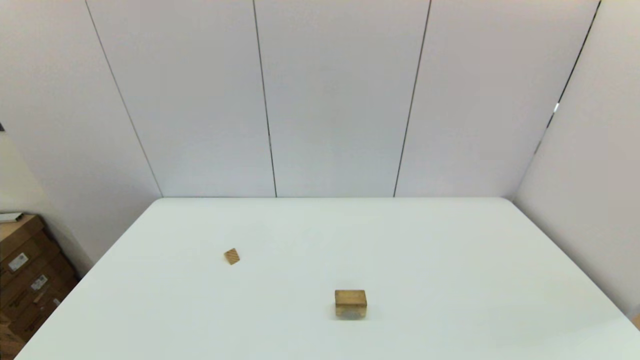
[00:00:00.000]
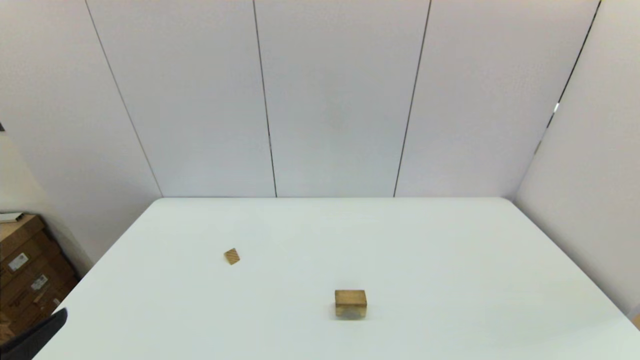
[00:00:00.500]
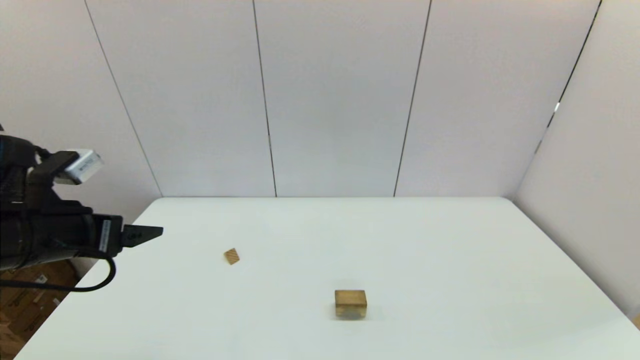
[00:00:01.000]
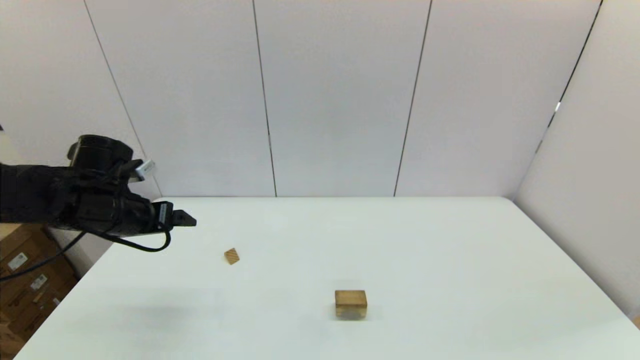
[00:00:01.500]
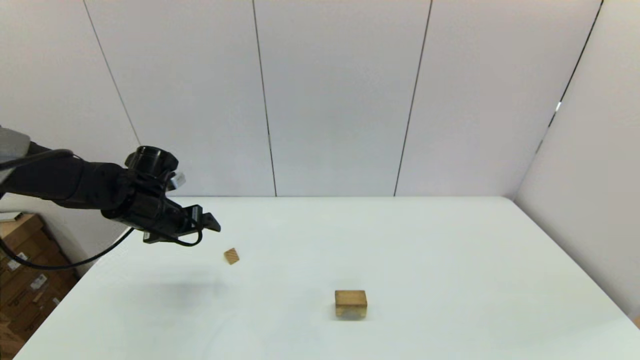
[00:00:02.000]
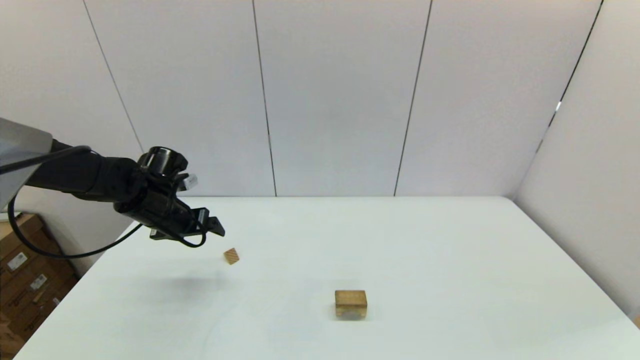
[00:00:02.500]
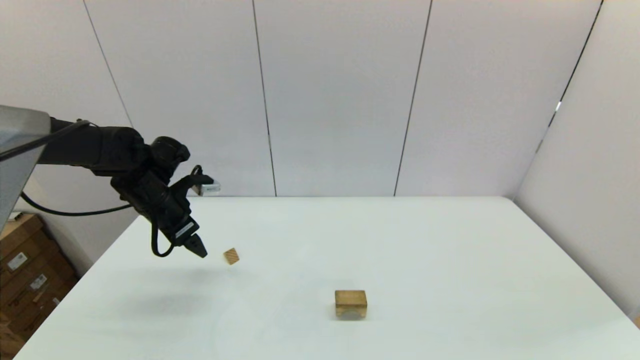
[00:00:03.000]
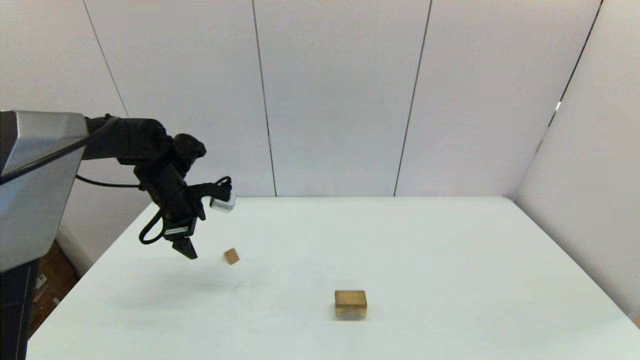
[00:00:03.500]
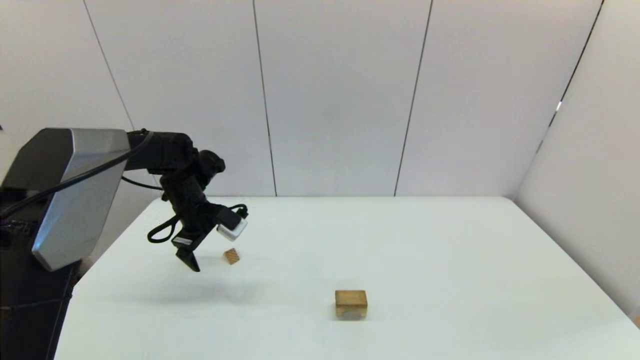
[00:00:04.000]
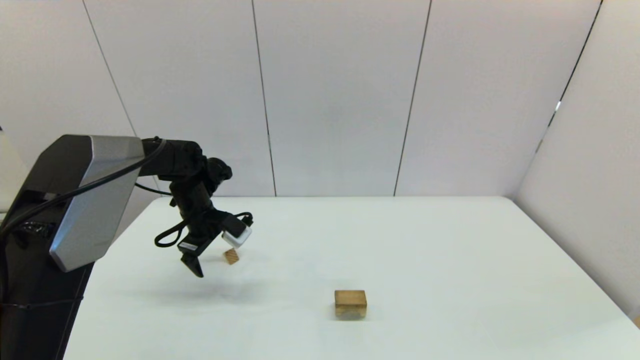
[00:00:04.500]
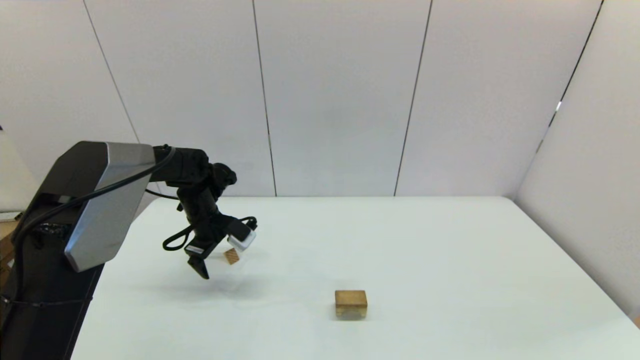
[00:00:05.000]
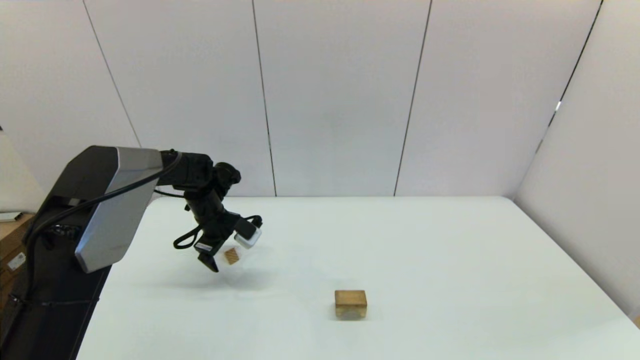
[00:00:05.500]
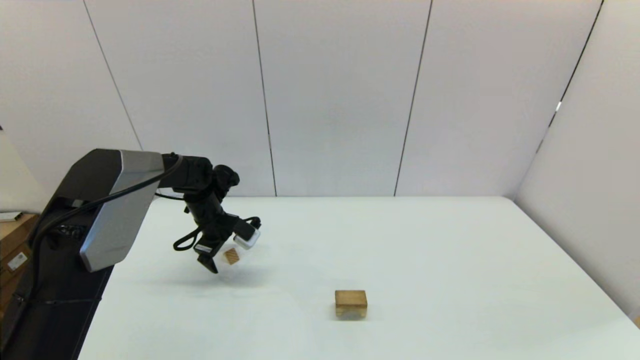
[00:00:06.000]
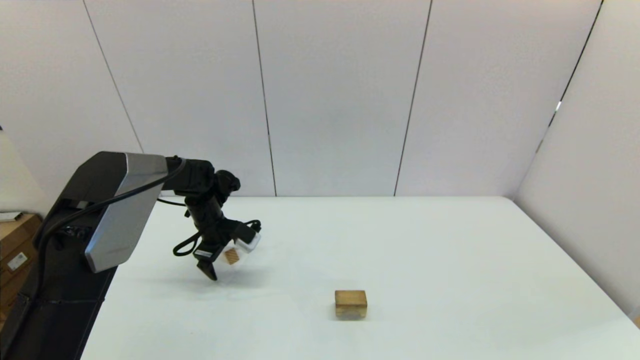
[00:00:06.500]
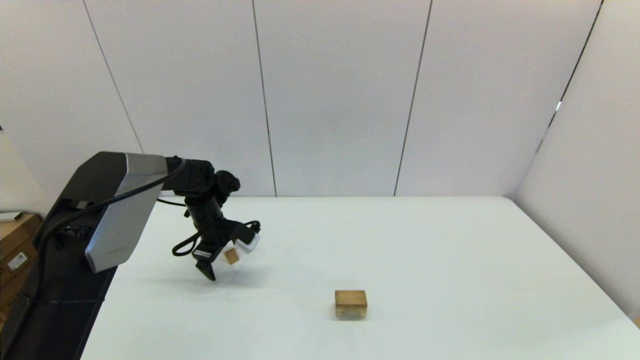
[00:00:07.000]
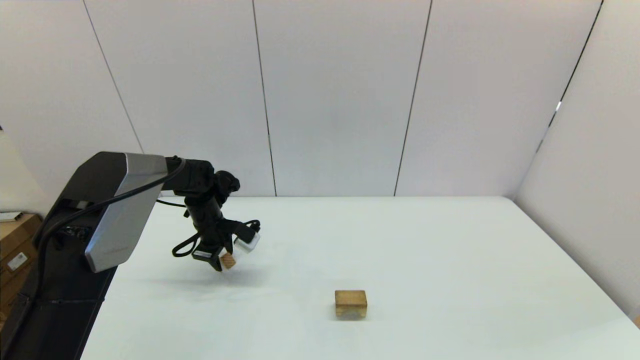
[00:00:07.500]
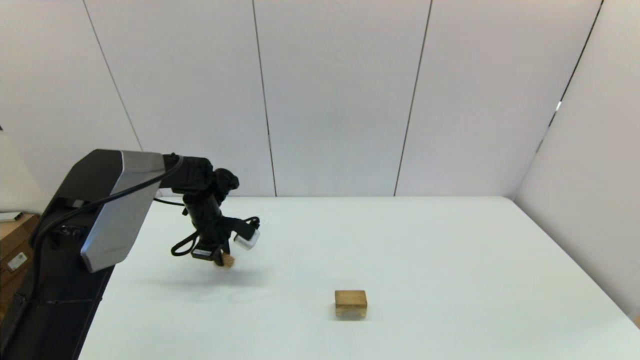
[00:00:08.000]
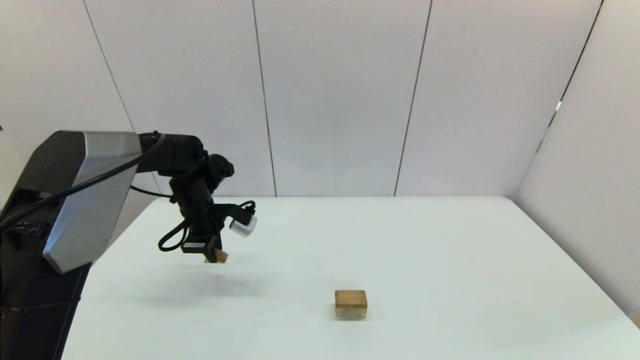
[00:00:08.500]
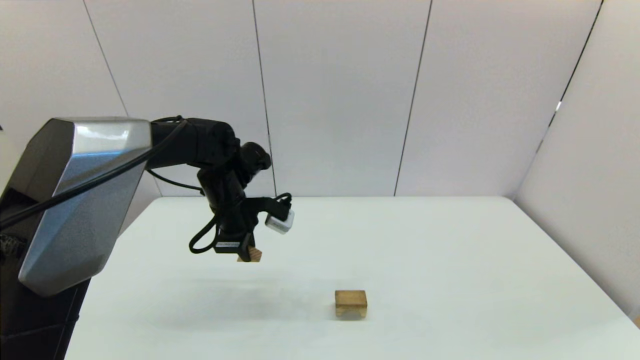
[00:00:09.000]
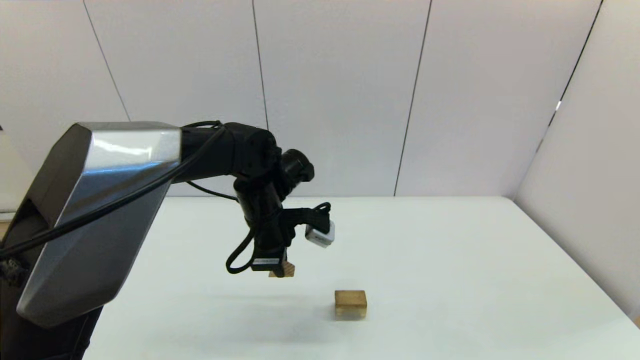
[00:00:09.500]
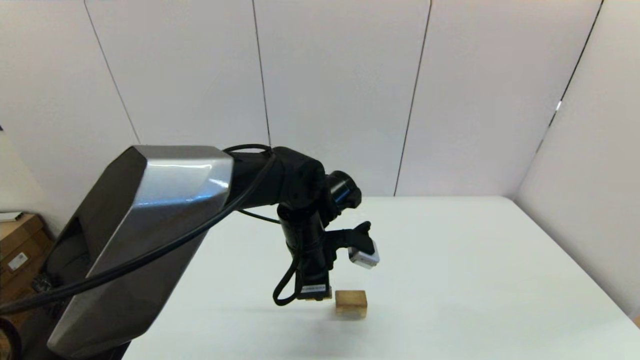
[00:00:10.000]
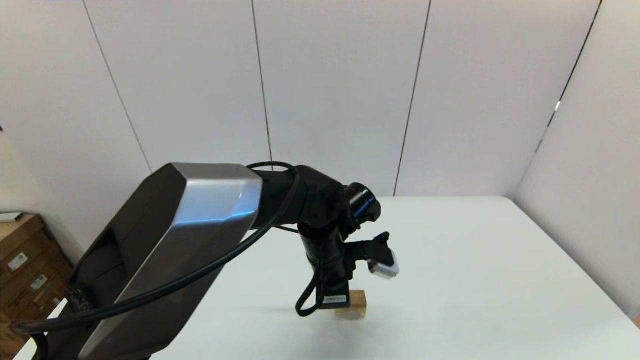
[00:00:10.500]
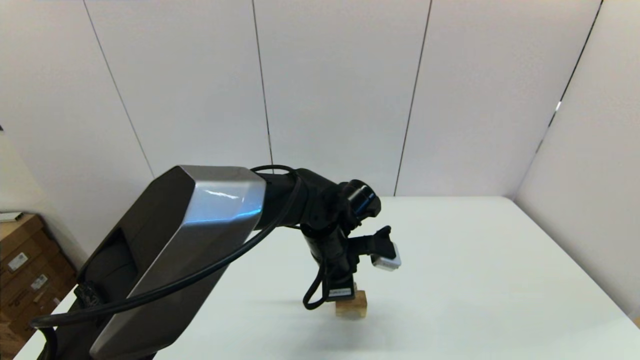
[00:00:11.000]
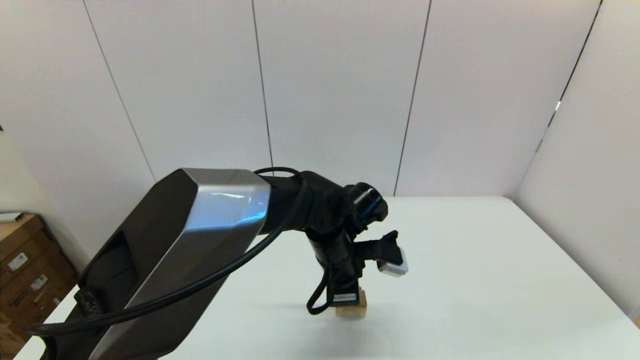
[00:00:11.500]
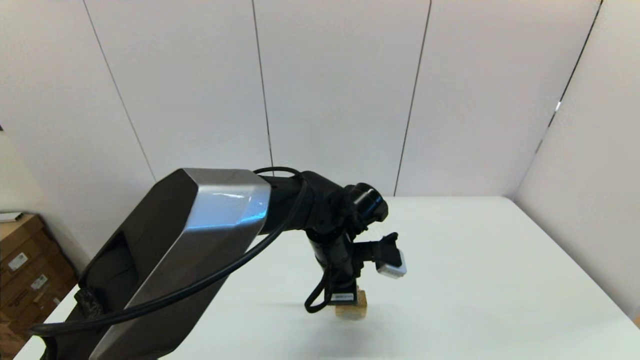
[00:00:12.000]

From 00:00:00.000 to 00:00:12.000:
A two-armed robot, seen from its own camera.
Task of the whole recording: place the arched building blocks in the center of the table, set up the rectangular building blocks, and then set up the triangular building blocks.
Step, from 00:00:00.000 to 00:00:07.500: Grasp the triangle-shaped block with the left gripper.
From 00:00:00.000 to 00:00:02.000: The left gripper heads forward, covering roughly 40 cm.
From 00:00:02.000 to 00:00:04.000: The left gripper is displaced forward by about 5 cm.
From 00:00:04.000 to 00:00:06.000: The left gripper shifts roughly 5 cm downward.
From 00:00:06.000 to 00:00:08.000: The left gripper closes up.
From 00:00:08.000 to 00:00:10.000: The left gripper is displaced to the right and backward by about 25 cm.
From 00:00:10.000 to 00:00:12.000: The grippers make only small movements.

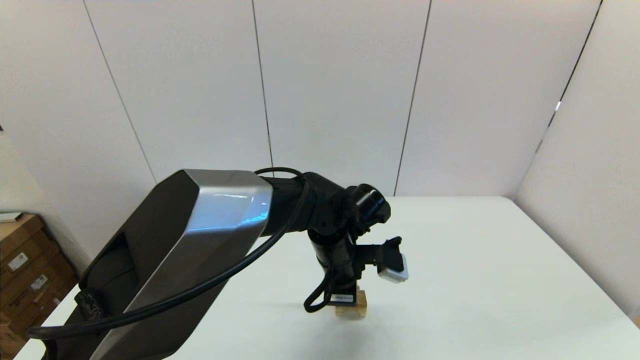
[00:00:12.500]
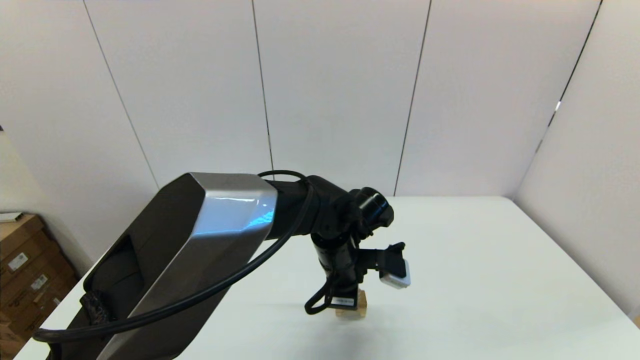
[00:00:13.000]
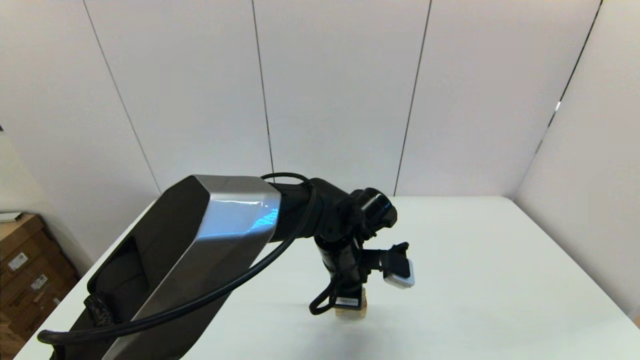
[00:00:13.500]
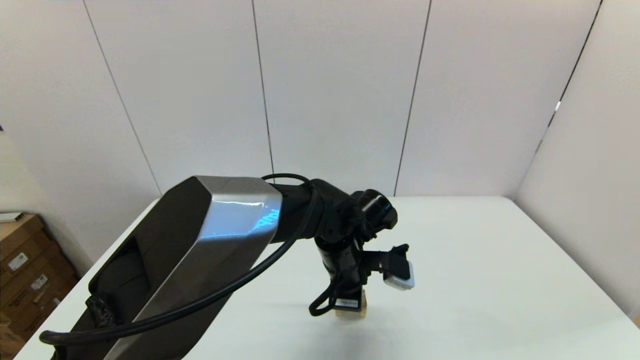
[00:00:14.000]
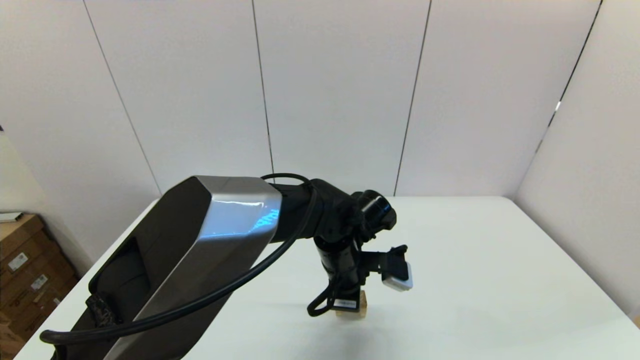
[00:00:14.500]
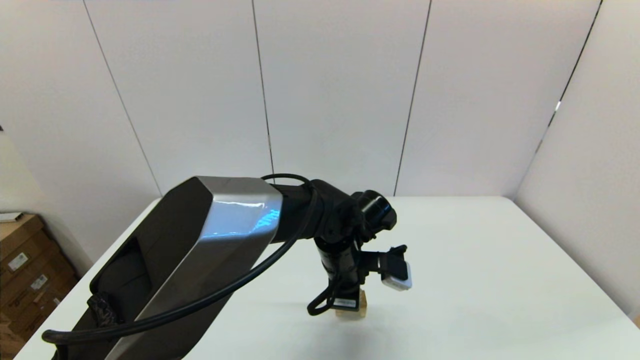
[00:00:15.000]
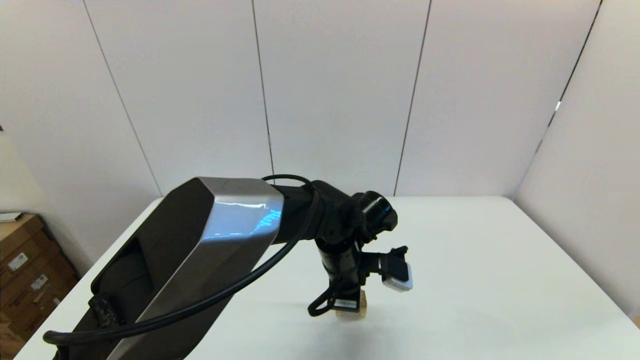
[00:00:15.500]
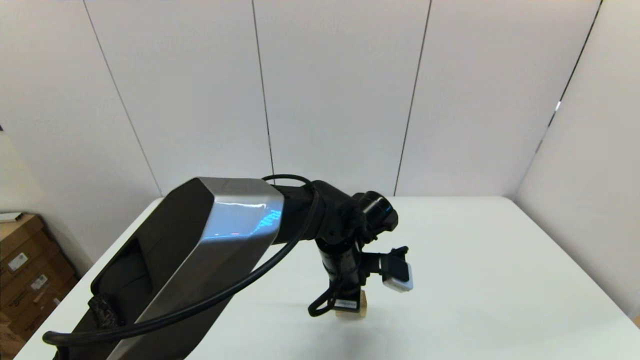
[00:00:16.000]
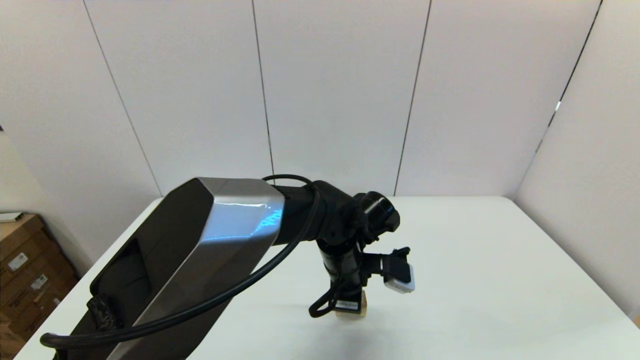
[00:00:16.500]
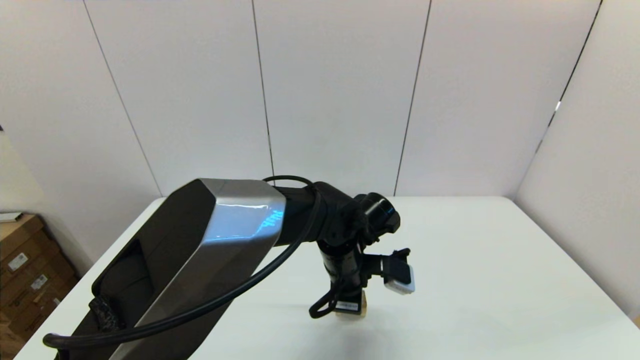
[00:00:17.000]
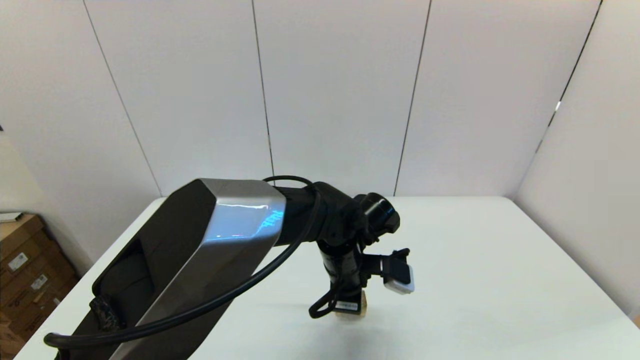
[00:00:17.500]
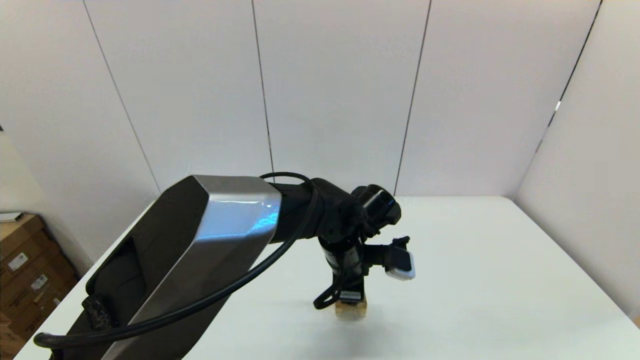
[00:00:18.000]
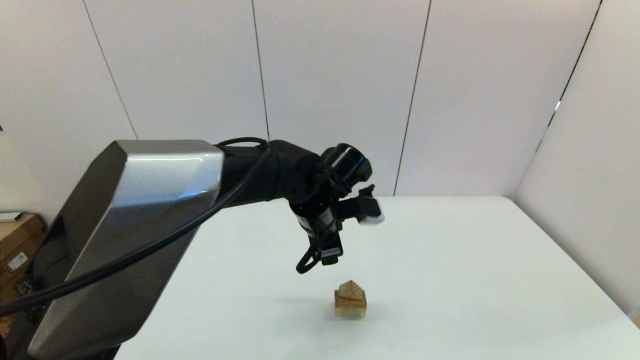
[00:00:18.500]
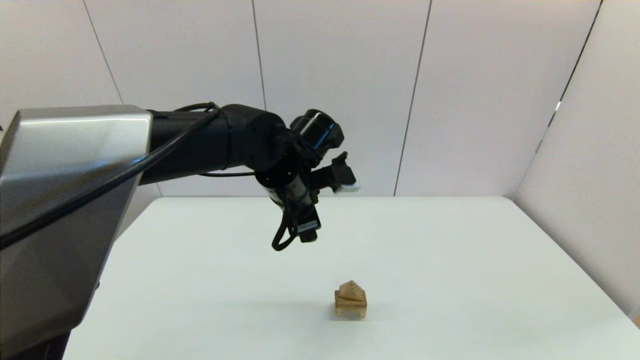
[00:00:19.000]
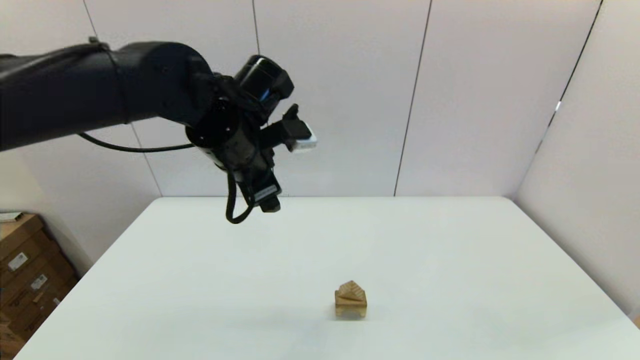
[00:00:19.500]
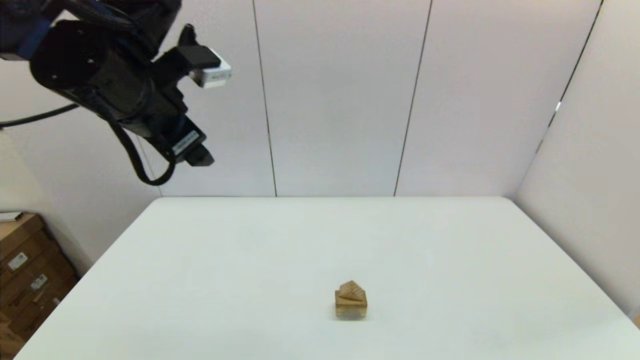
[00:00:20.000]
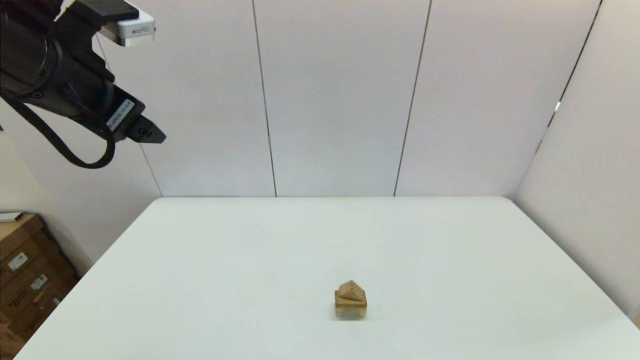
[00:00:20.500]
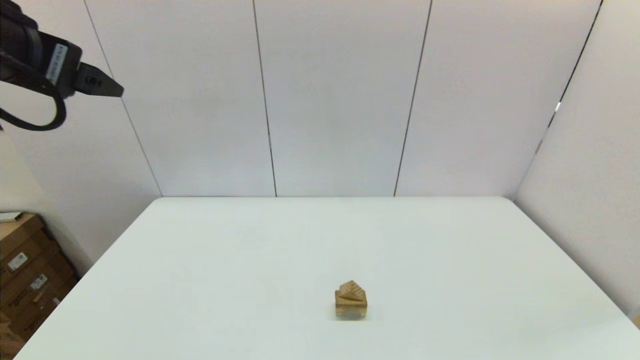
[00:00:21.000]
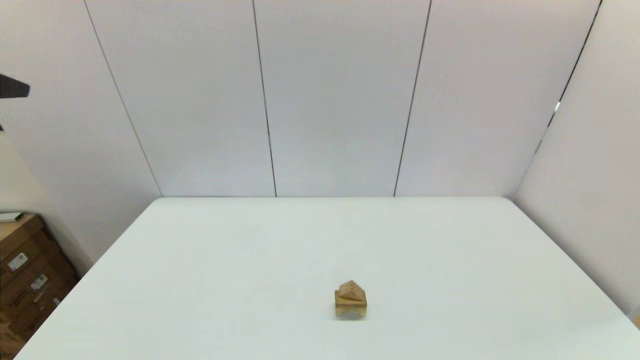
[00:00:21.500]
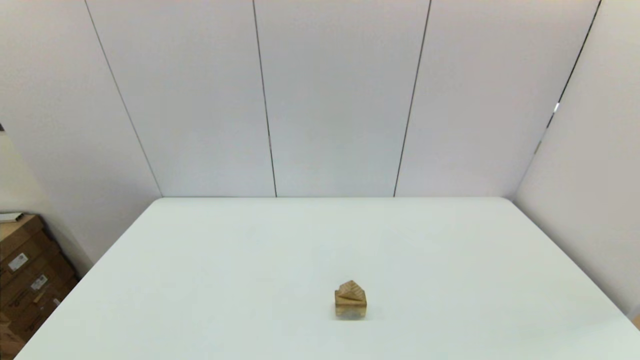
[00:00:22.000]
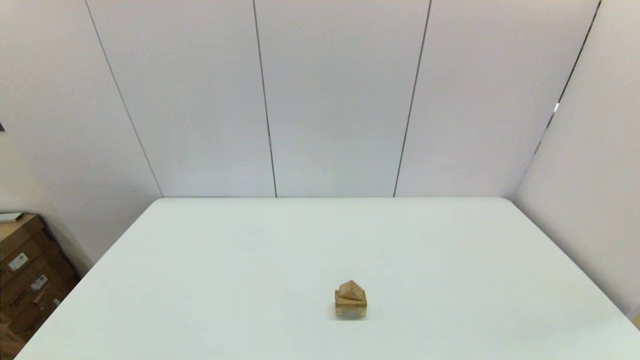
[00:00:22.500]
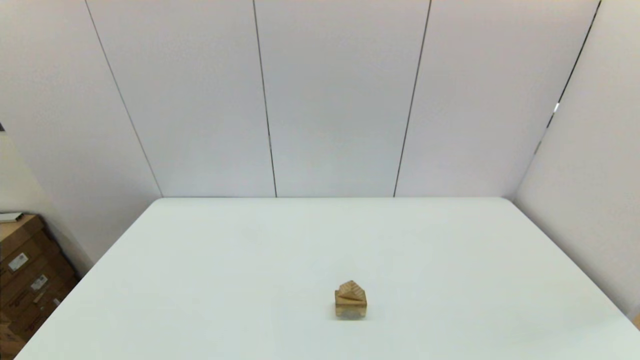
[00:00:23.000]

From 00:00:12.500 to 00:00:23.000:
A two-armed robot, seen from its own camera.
Task of the whole recording: place the arched building blocks in the center of the table, set up the rectangular building blocks, and then set up the triangular building blocks.
From 00:00:12.500 to 00:00:14.500: Neither gripper changes place.
From 00:00:14.500 to 00:00:16.500: Both grippers stay about where they are.
From 00:00:16.500 to 00:00:19.000: The left gripper is displaced upward and to the left by roughly 15 cm, and opens.
From 00:00:19.000 to 00:00:21.000: The left gripper moves to the left, upward and backward, some 30 cm.
From 00:00:21.000 to 00:00:23.000: The left gripper is displaced backward and downward by some 25 cm.
